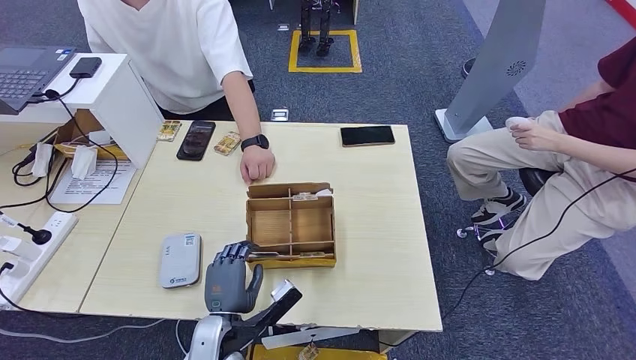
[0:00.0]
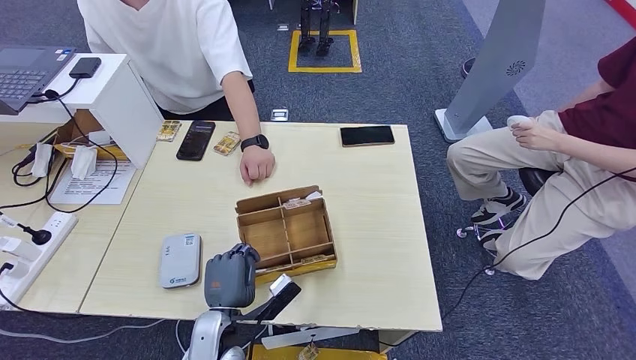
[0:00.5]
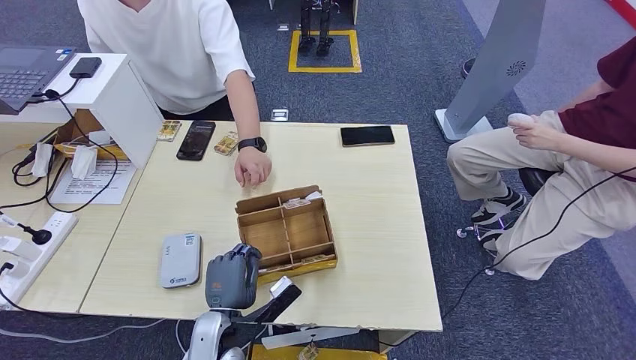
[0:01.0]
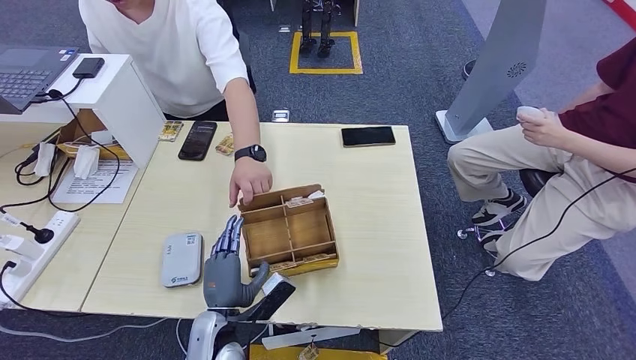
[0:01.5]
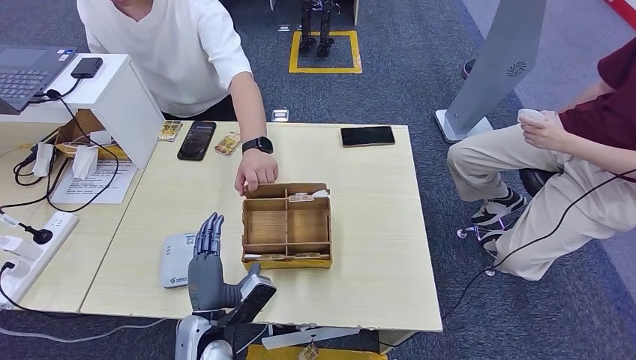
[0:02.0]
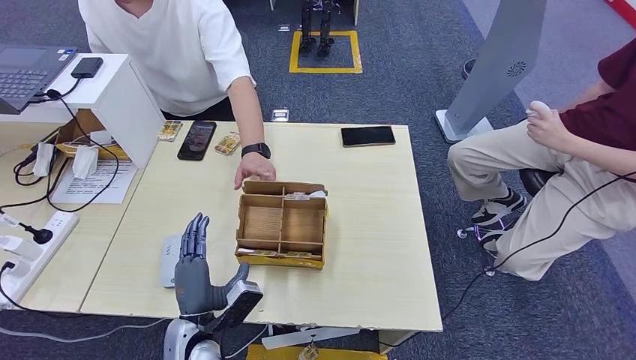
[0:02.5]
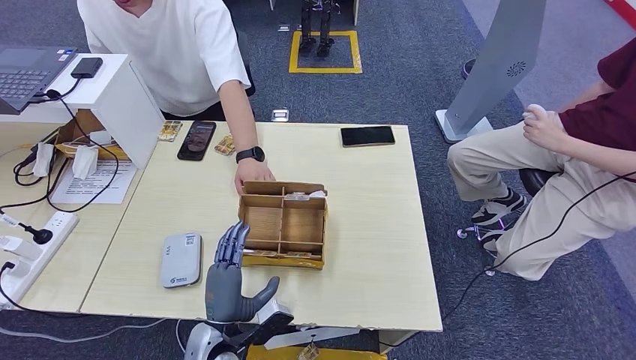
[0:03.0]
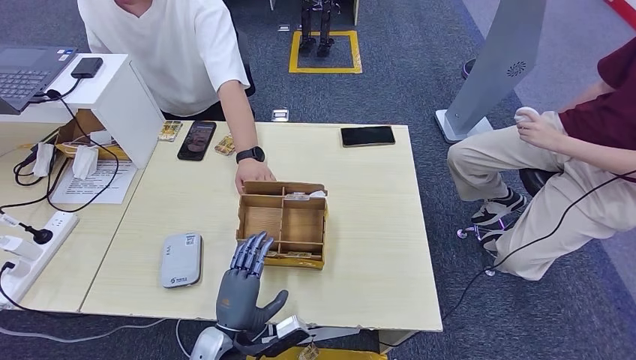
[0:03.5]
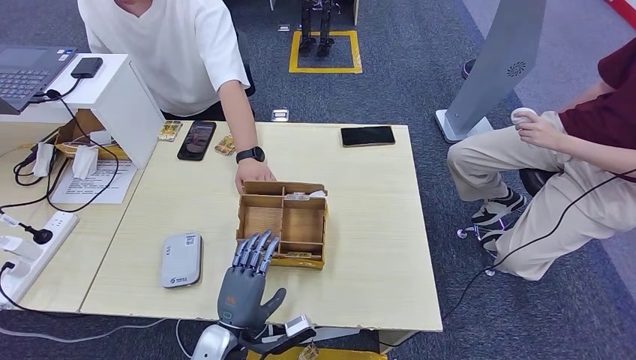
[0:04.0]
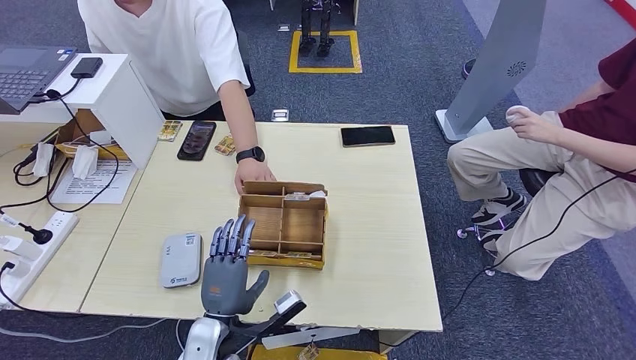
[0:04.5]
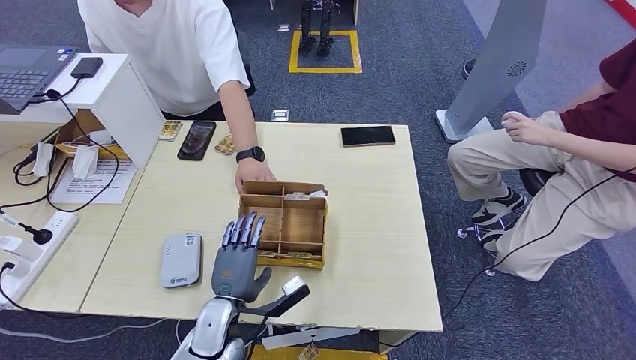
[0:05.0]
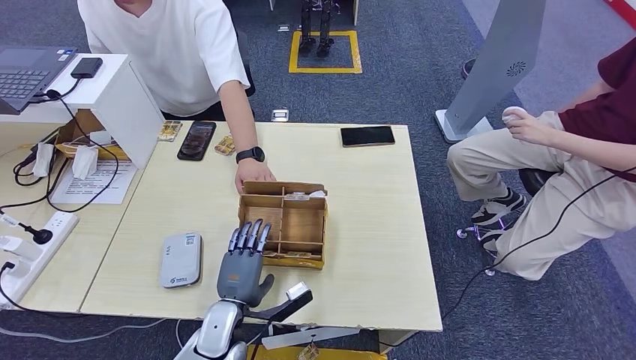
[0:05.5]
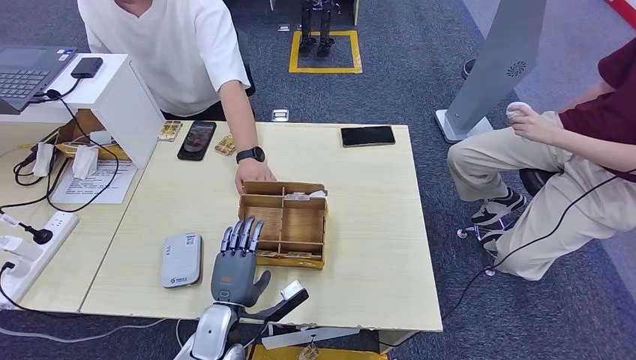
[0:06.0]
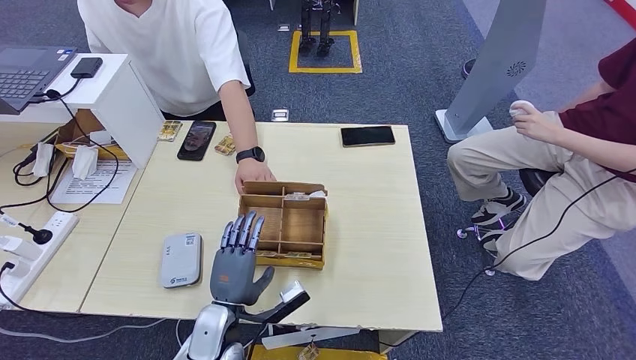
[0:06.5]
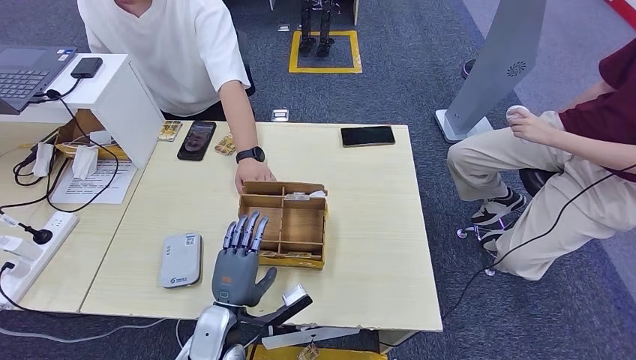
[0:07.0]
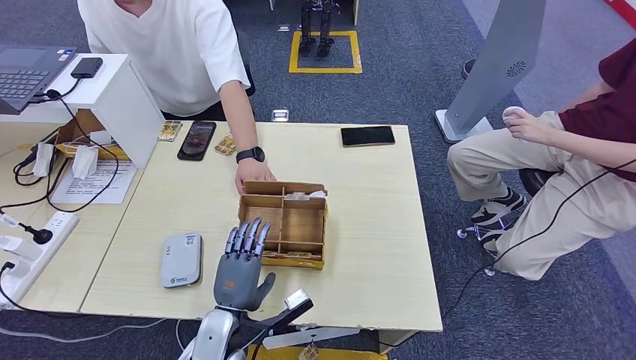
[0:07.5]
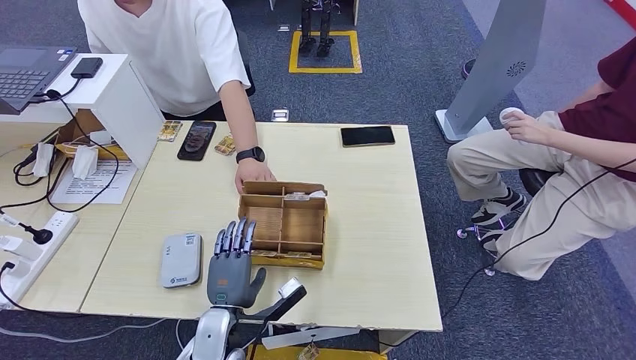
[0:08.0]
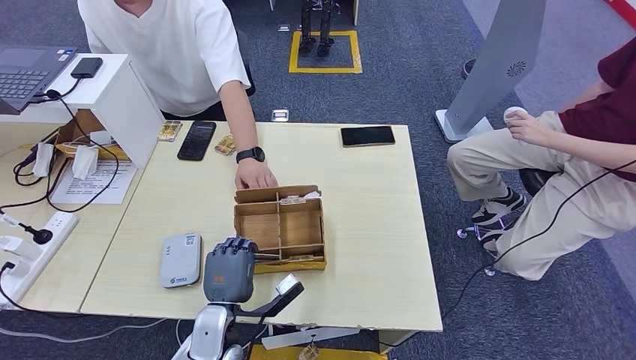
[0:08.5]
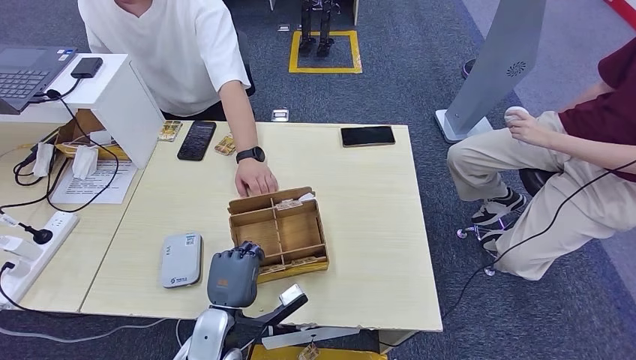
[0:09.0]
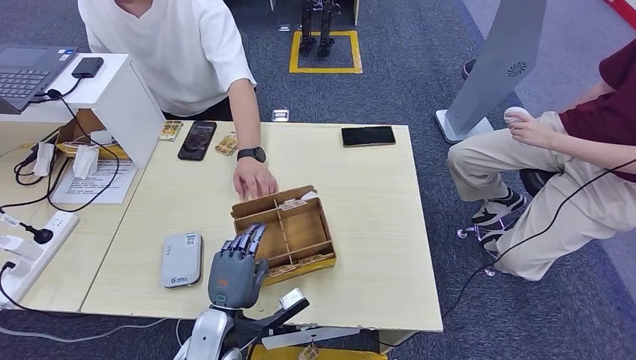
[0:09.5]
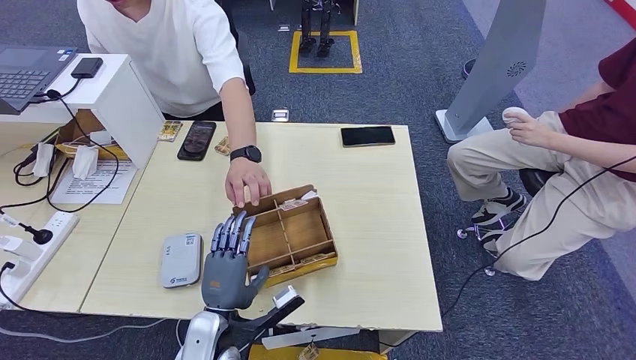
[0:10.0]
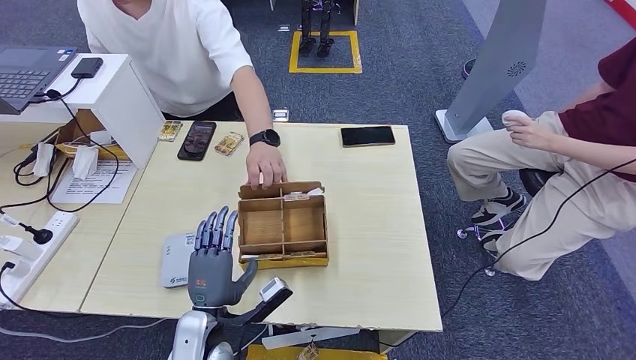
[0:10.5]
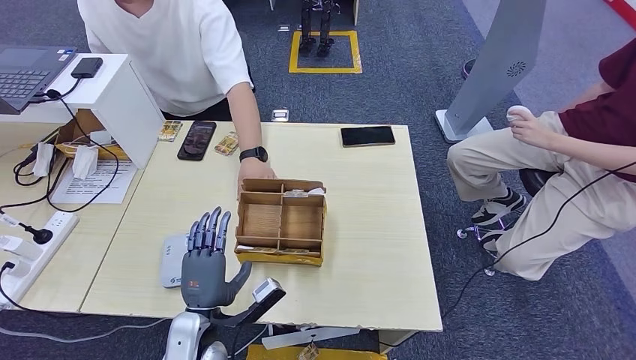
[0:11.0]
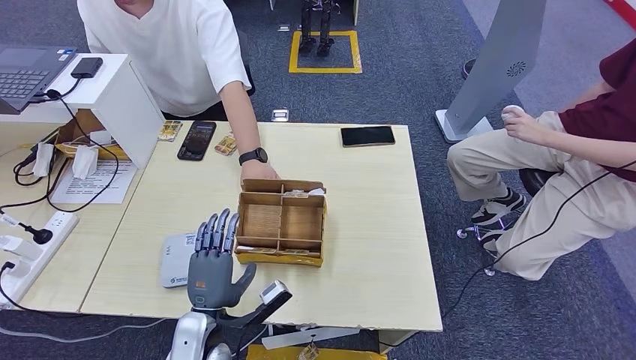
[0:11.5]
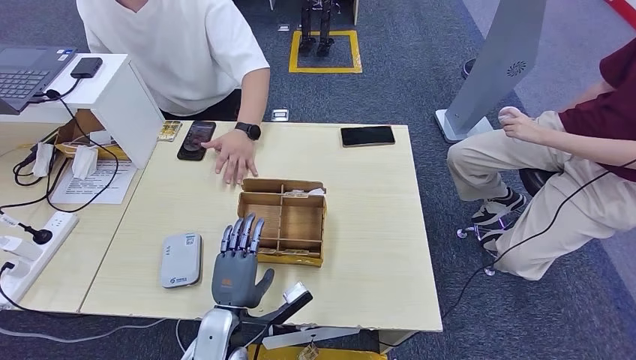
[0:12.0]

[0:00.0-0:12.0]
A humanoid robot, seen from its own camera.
0:04.0 to 0:12.0: The hands move only a little.

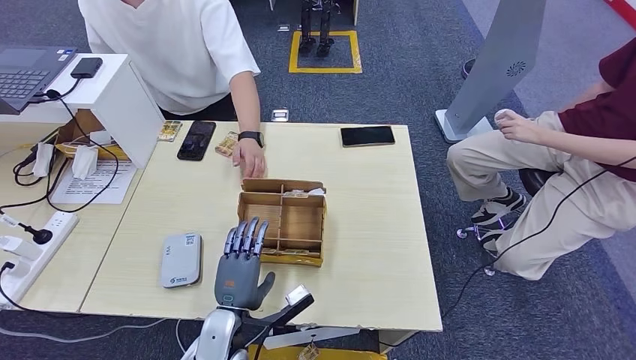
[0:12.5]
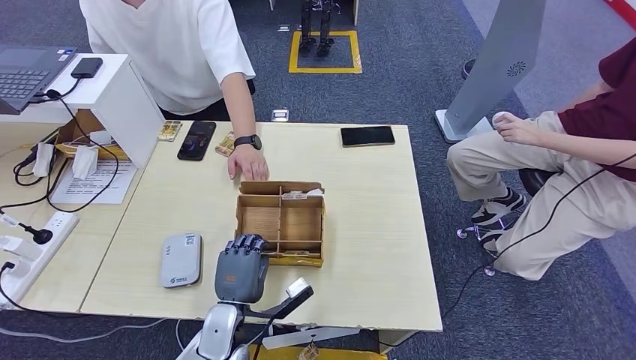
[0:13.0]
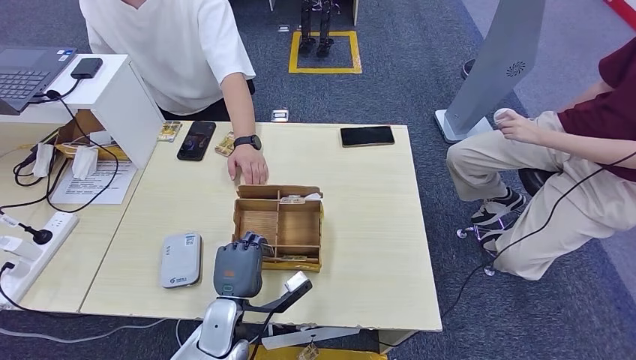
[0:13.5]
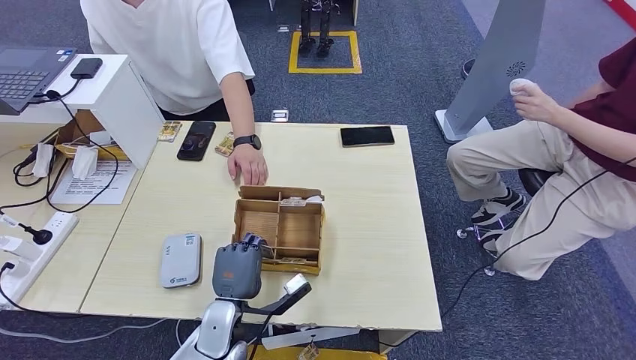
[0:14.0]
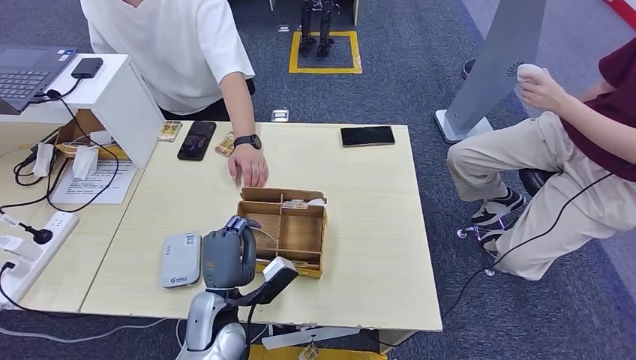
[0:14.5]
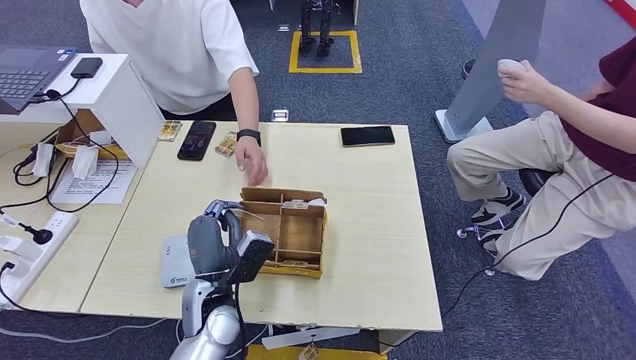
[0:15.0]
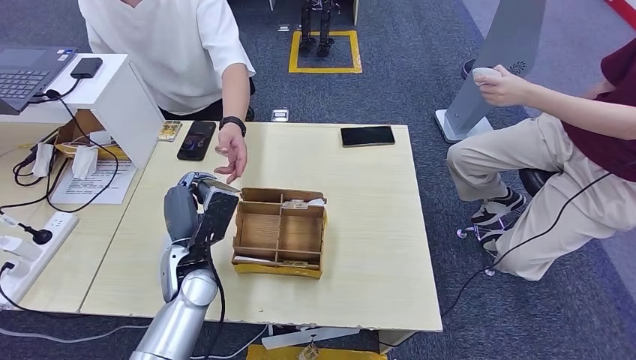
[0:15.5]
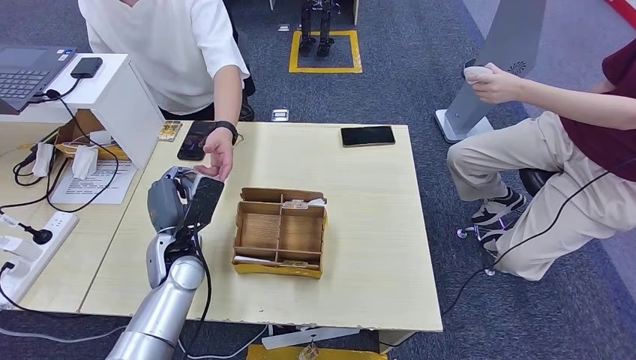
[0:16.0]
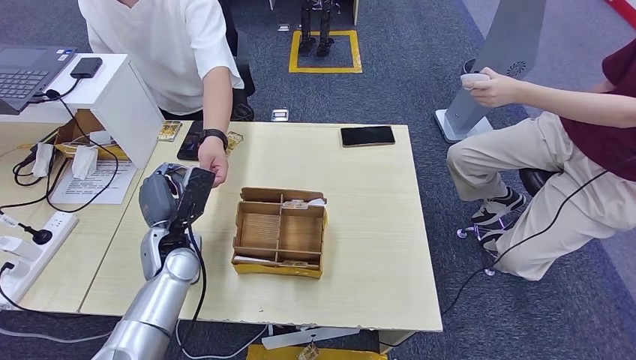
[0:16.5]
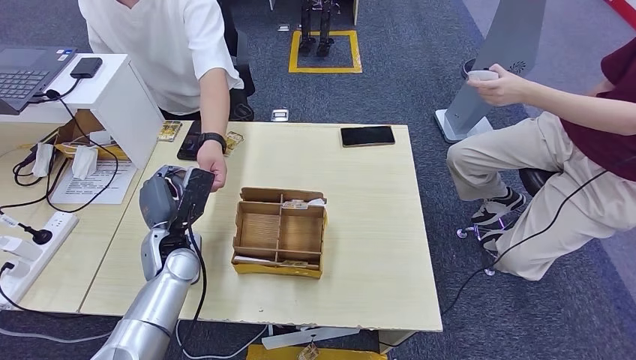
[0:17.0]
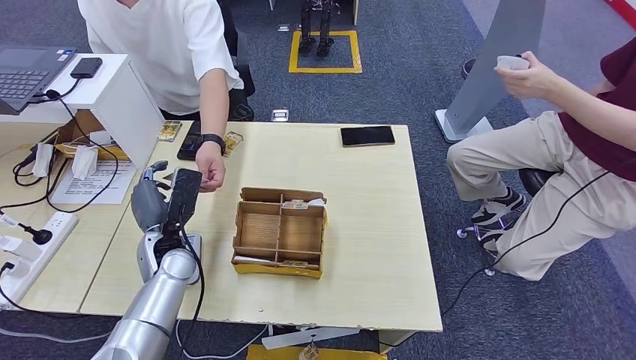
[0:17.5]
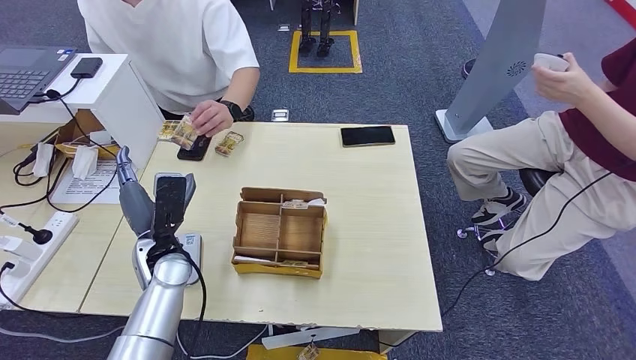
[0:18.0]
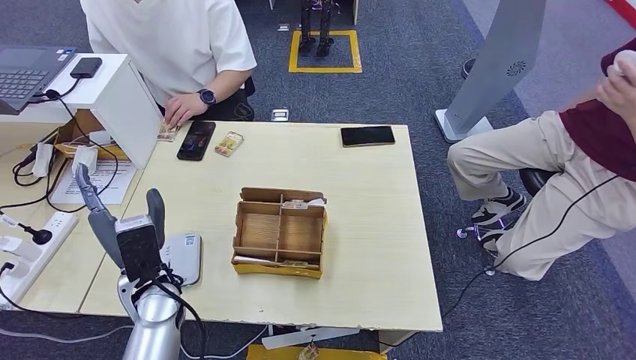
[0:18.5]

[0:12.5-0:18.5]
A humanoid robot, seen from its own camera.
Step, 0:12.5 to 0:15.0: Pick up the room key from the key card box.
Step, 0:15.5 to 0:18.5: Hand the room key to the person.
0:14.5 to 0:16.5: The left hand goes about 15 cm forward and to the left.
0:16.5 to 0:18.5: The left hand travels backward by some 5 cm.
